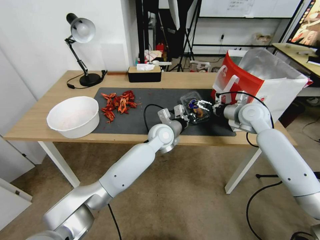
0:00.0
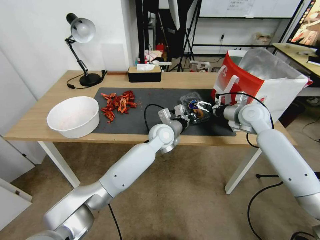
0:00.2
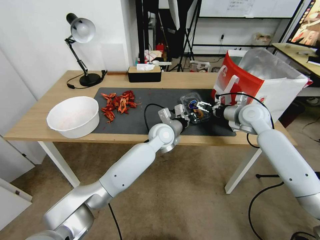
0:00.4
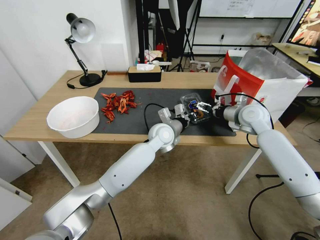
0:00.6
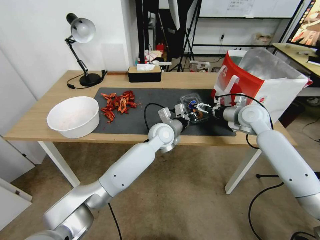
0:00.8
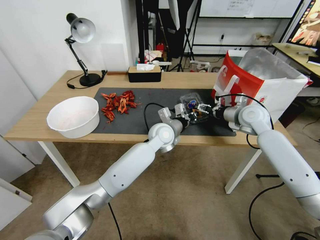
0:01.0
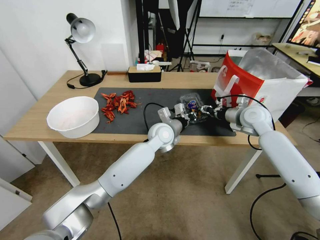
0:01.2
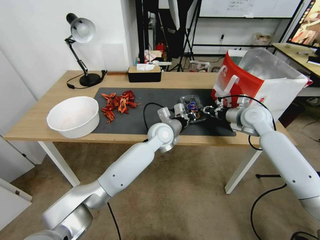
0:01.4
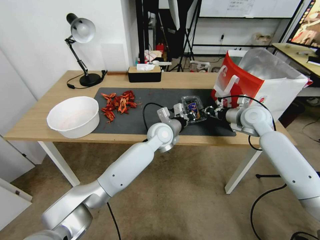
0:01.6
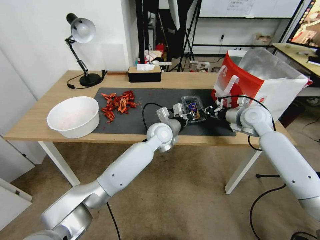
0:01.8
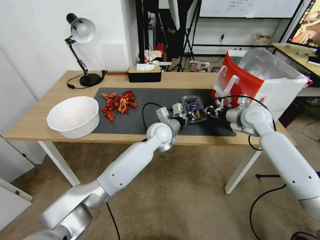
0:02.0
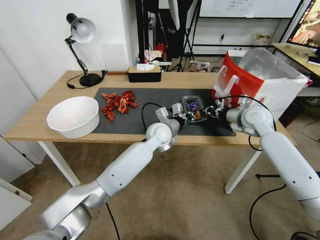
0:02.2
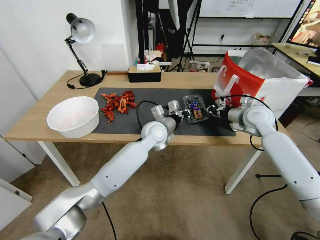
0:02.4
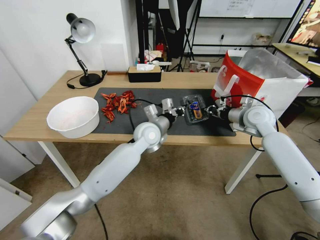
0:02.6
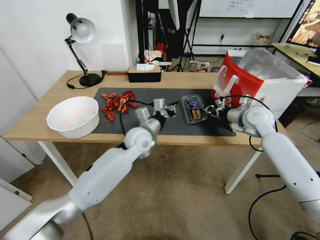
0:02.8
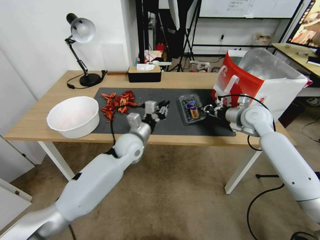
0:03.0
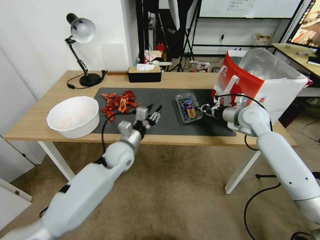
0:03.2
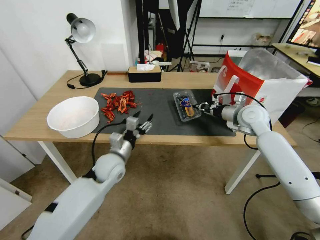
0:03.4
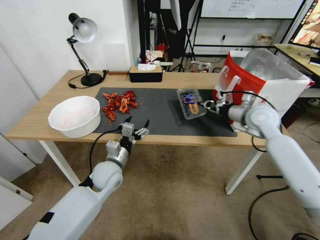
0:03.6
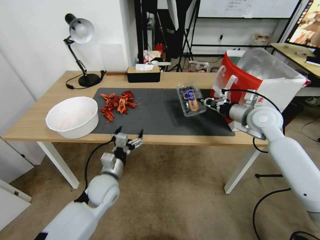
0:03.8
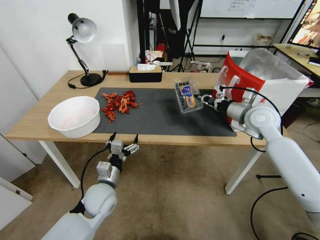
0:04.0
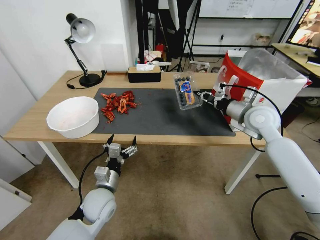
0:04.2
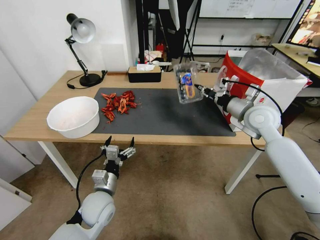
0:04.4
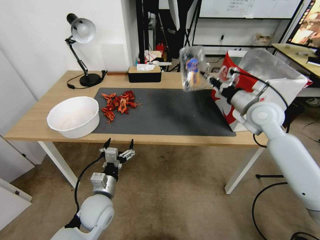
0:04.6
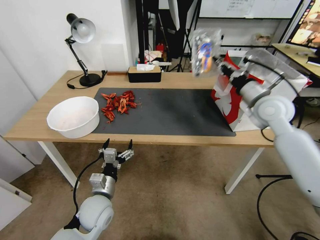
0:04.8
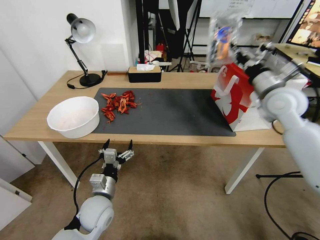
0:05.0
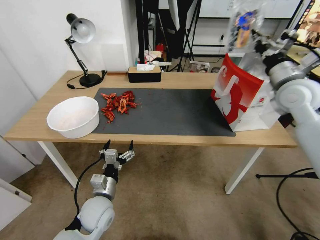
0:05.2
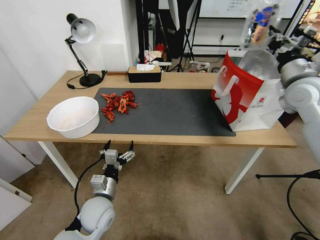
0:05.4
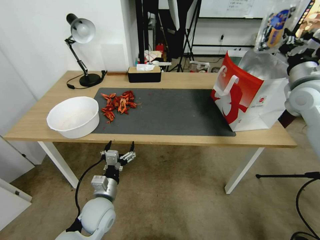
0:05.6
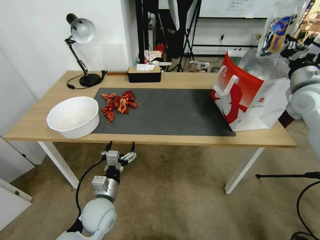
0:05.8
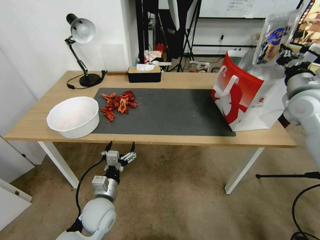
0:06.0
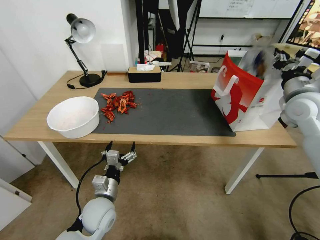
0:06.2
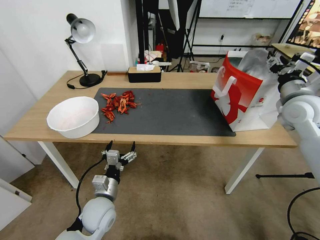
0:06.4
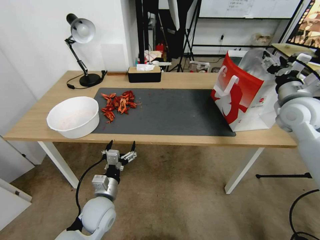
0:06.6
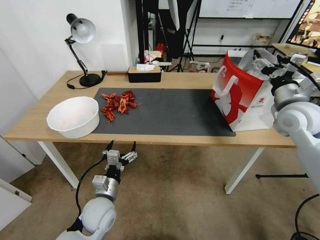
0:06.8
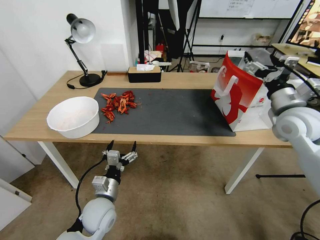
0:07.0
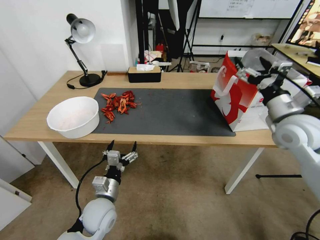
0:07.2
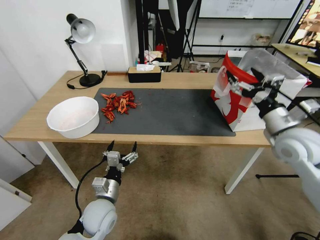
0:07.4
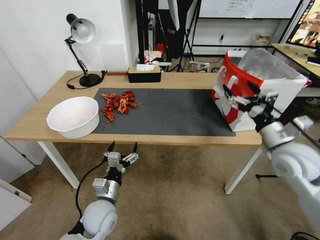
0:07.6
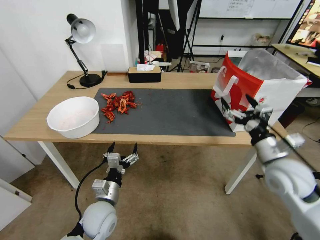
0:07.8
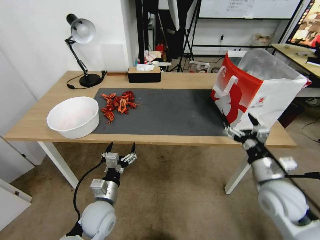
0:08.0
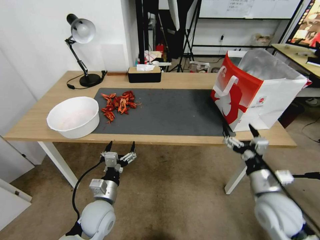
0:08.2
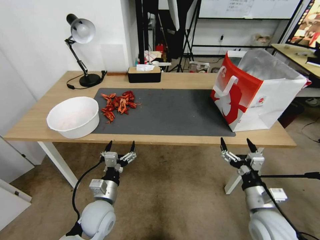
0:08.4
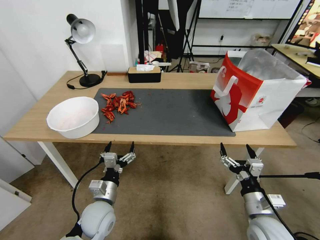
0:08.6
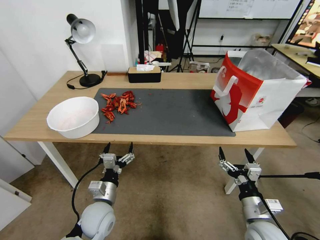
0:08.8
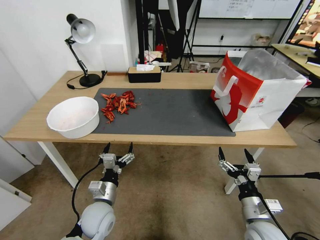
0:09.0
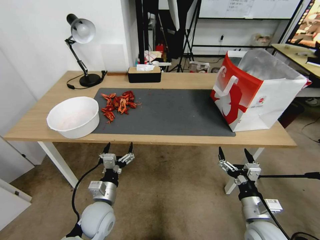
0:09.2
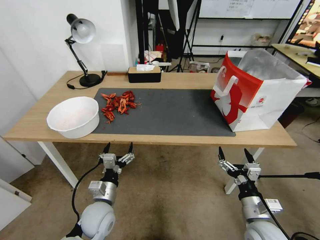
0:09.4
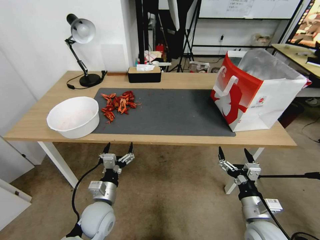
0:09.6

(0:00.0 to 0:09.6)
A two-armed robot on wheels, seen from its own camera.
Task of the whole recording: Close the takeout container lid, then place the container into the takeout bag.
0:00.0 - 0:01.6: The right gripper closes its fingers.
0:01.6 - 0:03.2: The left gripper shifts some 15 cm to the left and backward, and opens its fingers.
0:03.2 - 0:04.8: The right gripper is displaced upward by approximately 10 cm. The left gripper moves backward and downward, approximately 15 cm, and opens.
0:04.8 - 0:06.4: The right gripper goes some 5 cm to the right, and opens up.
0:06.4 - 0:08.0: The right gripper goes about 25 cm backward, downward and to the left, and opens up.
0:08.0 - 0:09.6: The right gripper is displaced downward and backward by some 10 cm.

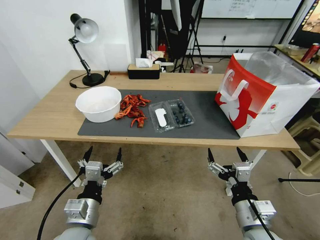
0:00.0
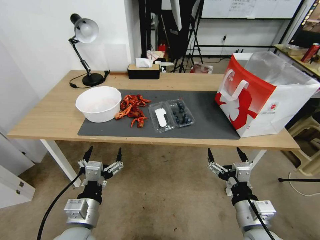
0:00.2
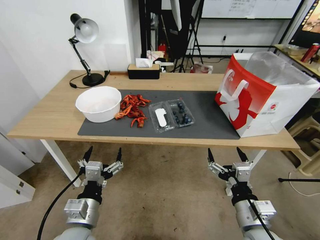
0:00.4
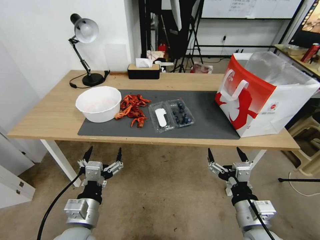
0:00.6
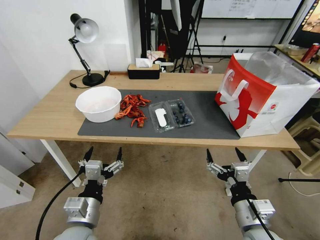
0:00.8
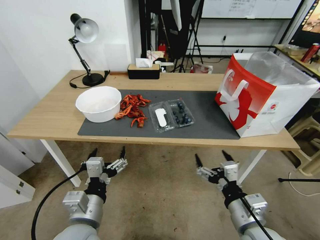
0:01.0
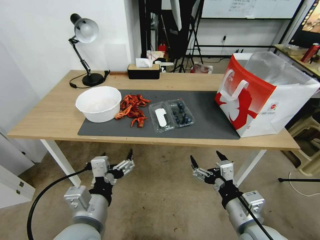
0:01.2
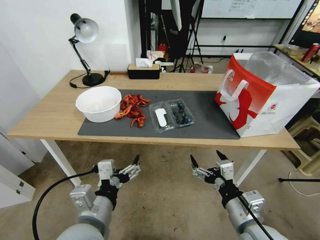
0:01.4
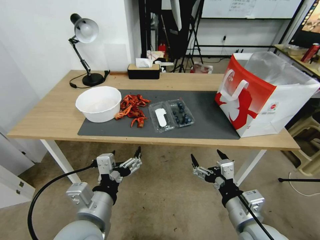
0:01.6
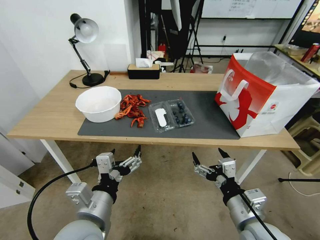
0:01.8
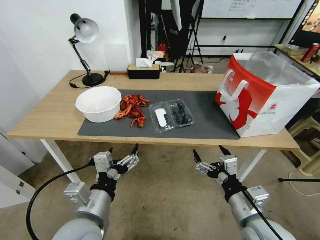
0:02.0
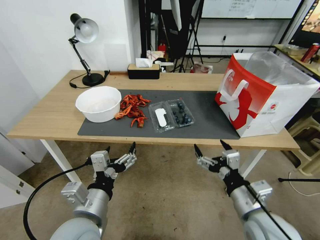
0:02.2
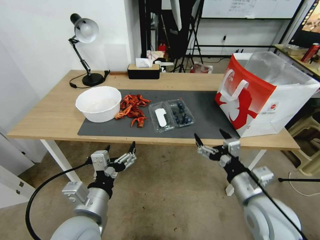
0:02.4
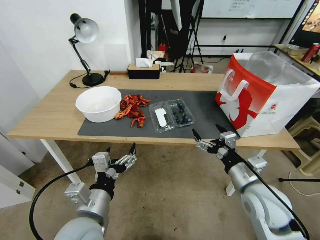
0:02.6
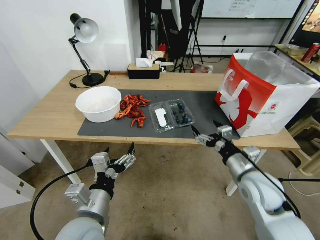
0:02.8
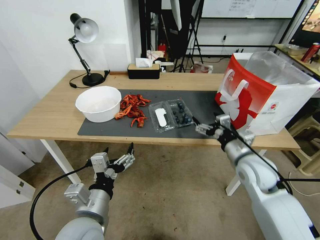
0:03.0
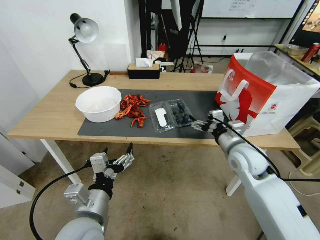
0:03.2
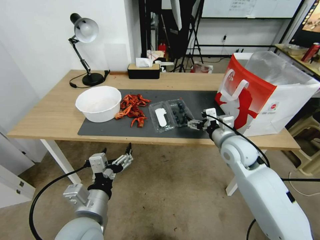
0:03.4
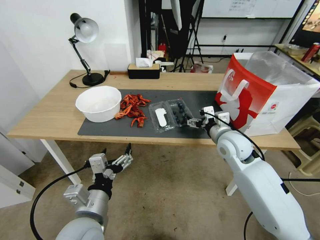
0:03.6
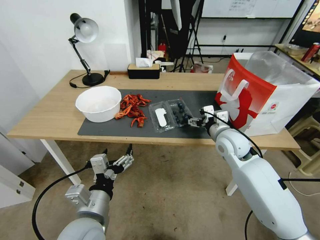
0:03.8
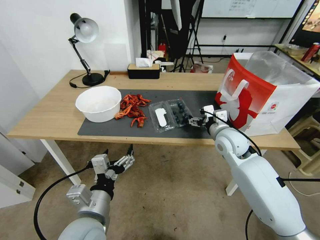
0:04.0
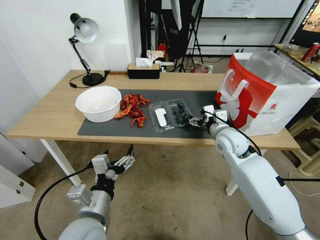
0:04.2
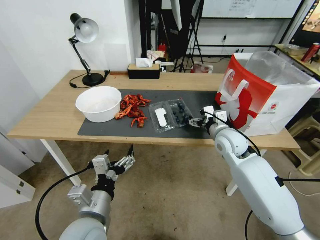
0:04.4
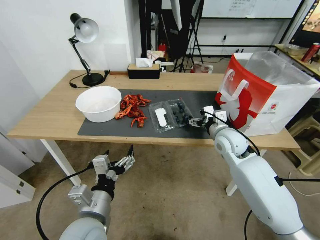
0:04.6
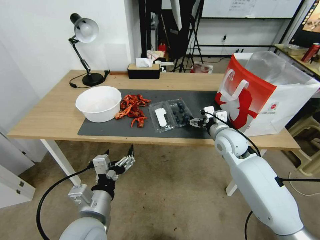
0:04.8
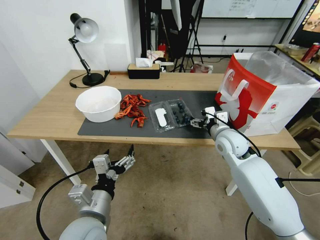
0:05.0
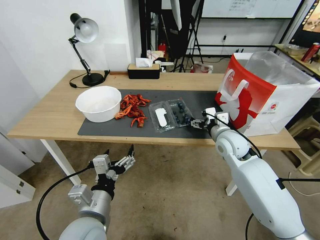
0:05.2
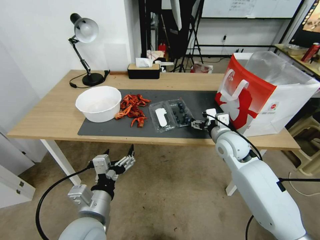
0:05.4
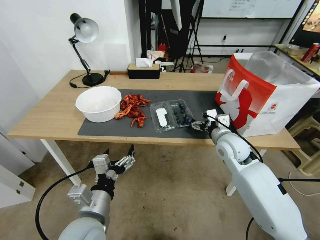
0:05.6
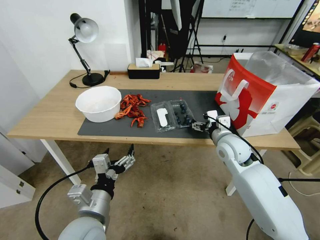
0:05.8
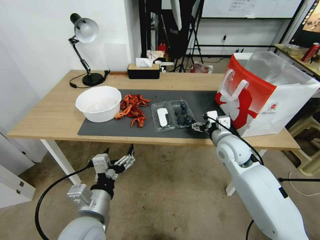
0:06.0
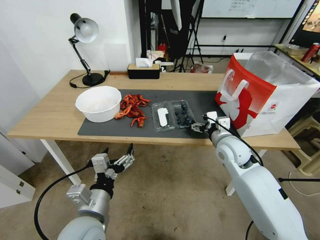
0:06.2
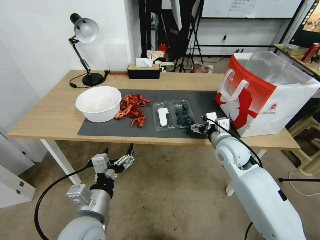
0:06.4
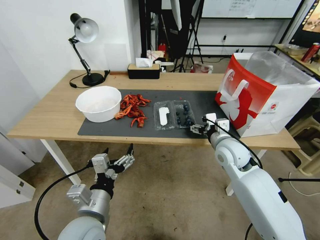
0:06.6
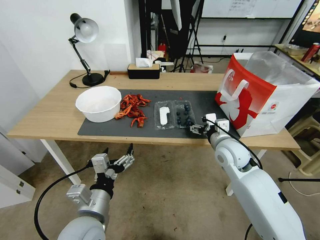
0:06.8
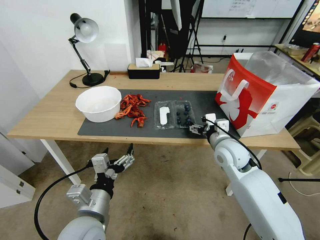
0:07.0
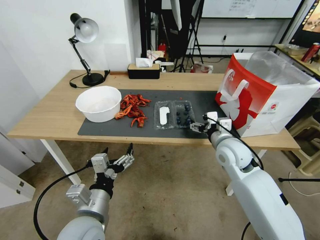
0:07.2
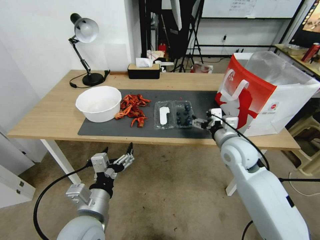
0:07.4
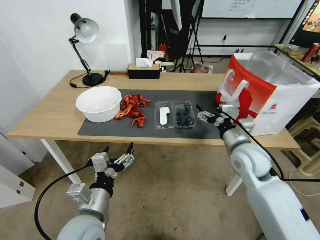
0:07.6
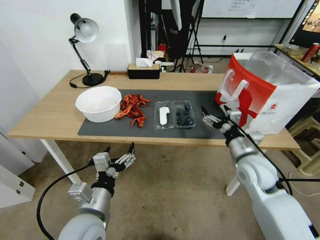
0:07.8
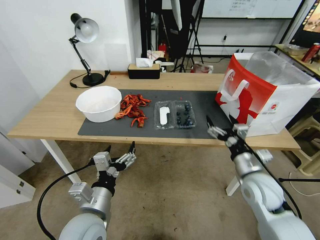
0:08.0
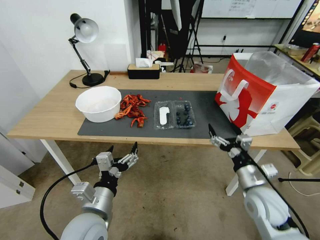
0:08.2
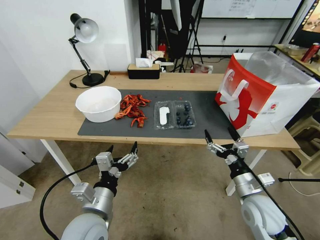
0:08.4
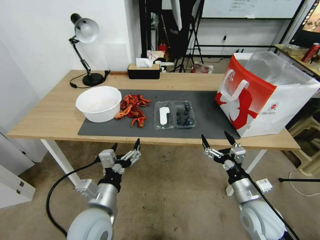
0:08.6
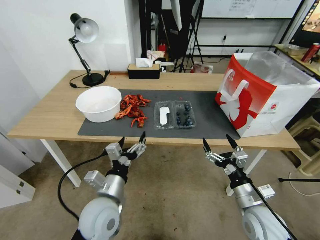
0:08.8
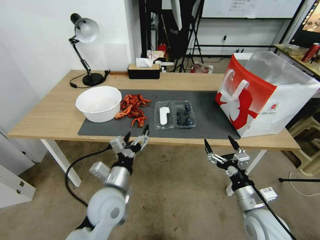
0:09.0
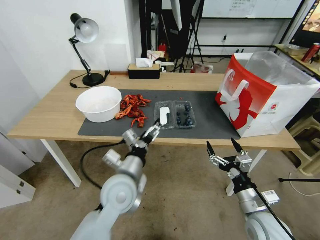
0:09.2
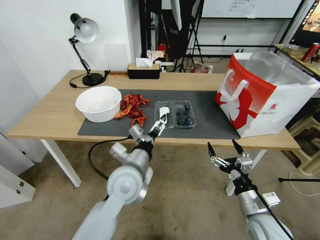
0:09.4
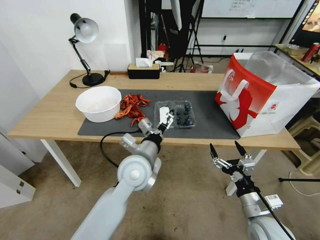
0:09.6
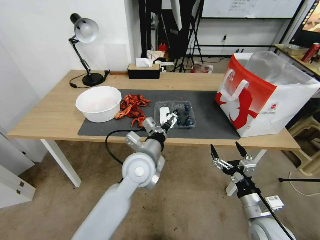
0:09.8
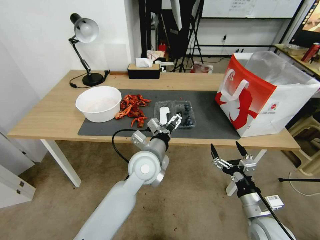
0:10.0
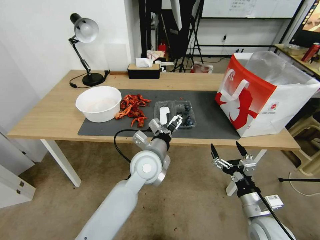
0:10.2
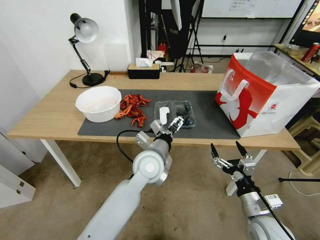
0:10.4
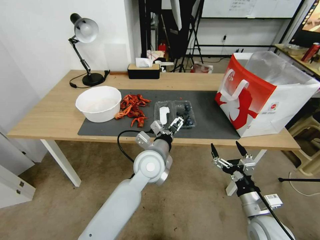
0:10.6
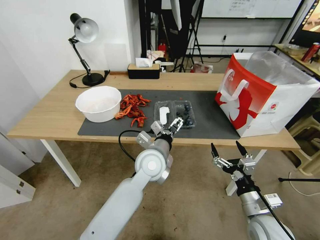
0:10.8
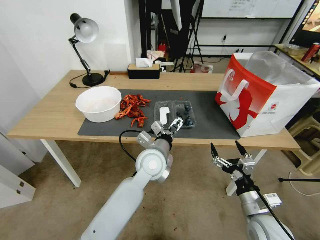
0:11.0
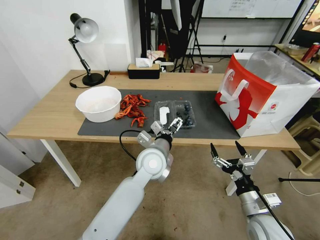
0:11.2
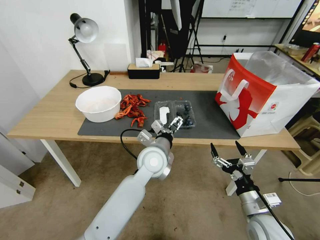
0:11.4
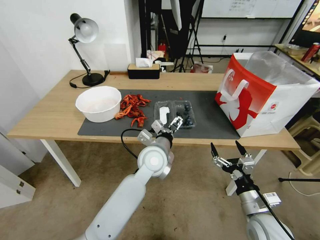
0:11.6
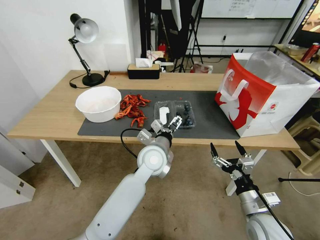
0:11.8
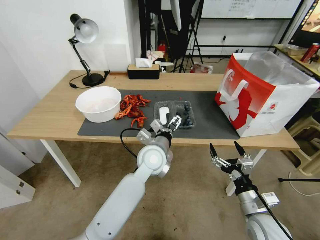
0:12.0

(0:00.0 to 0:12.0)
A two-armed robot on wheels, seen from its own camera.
Task of the whole recording: Close the takeout container lid, then place the container into the takeout bag.
0:01.6 - 0:03.0: The right gripper heads forward, covering roughly 15 cm.
0:03.0 - 0:04.4: The right gripper is displaced forward by roughly 10 cm.
0:04.4 - 0:06.0: The grippers make only small movements.
0:06.0 - 0:07.6: The right gripper shifts by roughly 5 cm.
0:07.6 - 0:09.0: The right gripper shifts some 20 cm backward and downward; the left gripper shifts roughly 5 cm forward.
0:09.0 - 0:10.4: The left gripper goes some 15 cm to the right and forward.
0:10.4 - 0:12.0: There are only small adjustments of the grippers.

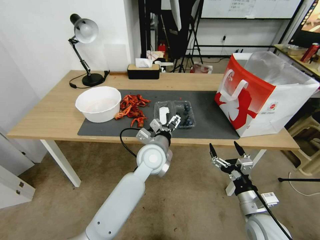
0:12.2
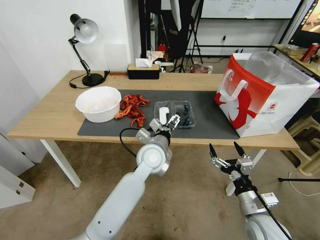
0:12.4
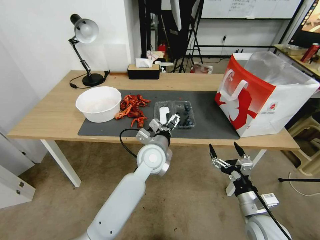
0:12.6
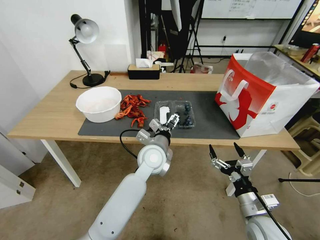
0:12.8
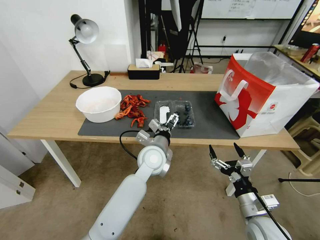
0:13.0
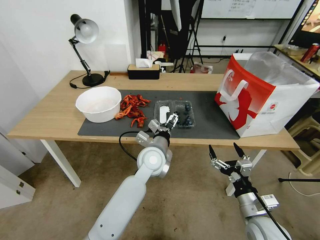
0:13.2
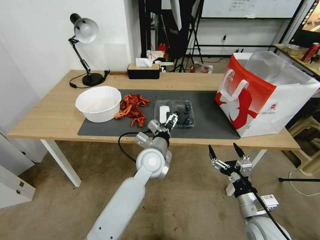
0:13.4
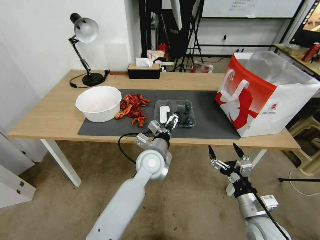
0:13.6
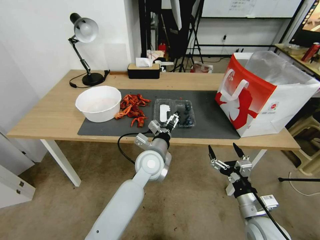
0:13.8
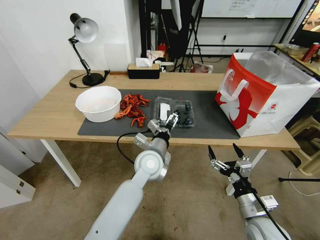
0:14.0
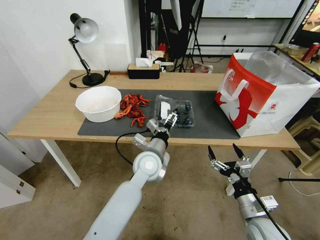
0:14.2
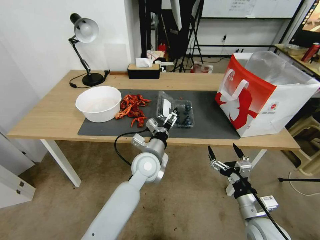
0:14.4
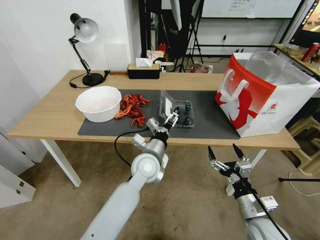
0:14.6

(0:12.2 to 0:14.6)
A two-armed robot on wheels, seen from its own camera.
Task of the whole recording: Close the takeout container lid, then place the container into the takeout bag.
0:12.2 - 0:14.6: The grippers move only a little.
